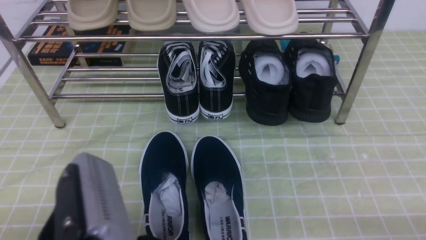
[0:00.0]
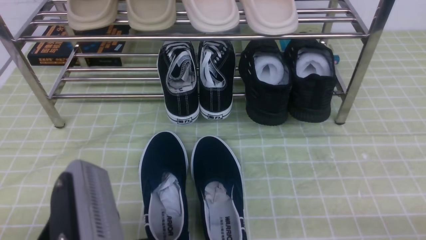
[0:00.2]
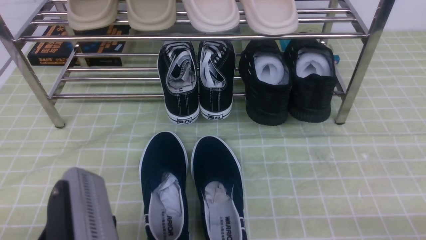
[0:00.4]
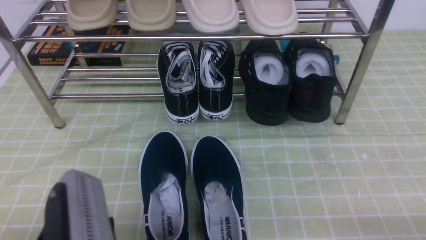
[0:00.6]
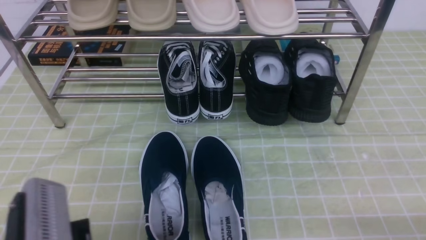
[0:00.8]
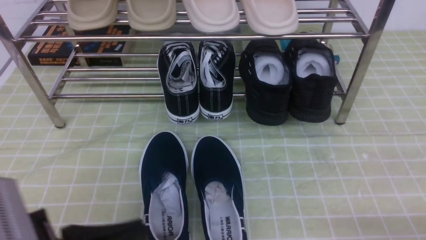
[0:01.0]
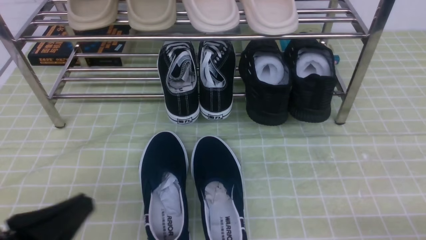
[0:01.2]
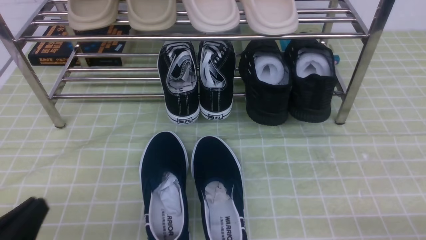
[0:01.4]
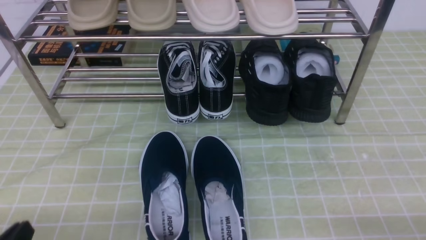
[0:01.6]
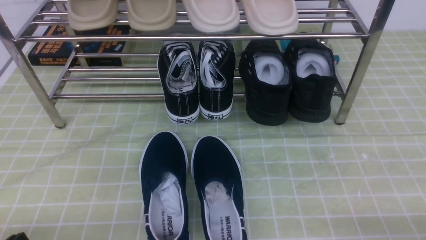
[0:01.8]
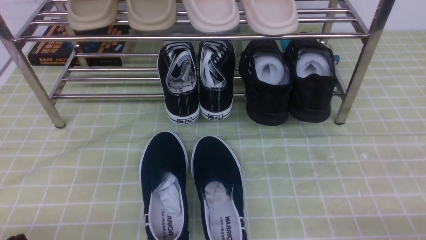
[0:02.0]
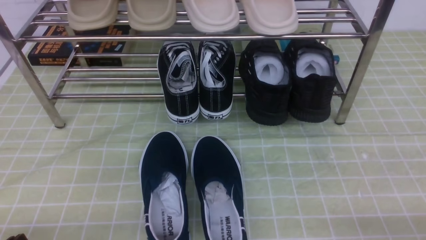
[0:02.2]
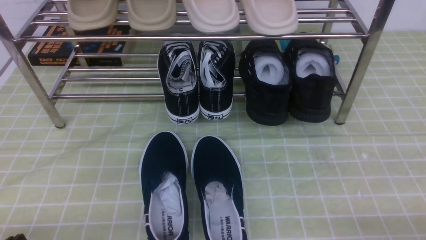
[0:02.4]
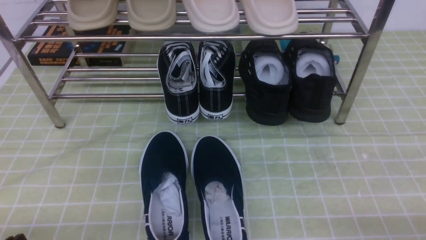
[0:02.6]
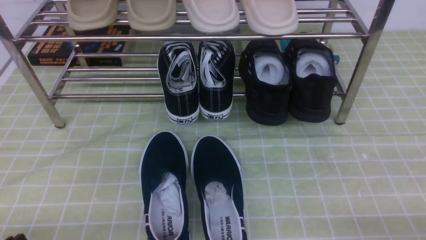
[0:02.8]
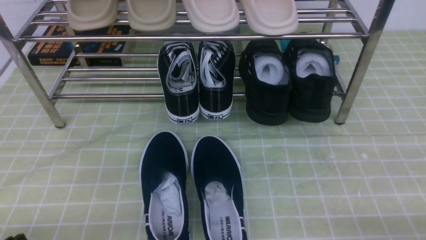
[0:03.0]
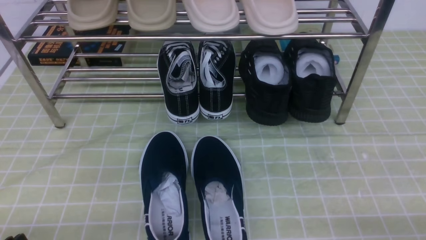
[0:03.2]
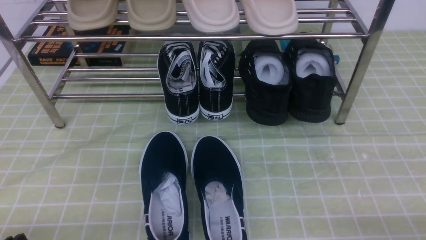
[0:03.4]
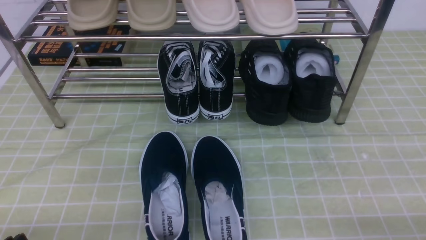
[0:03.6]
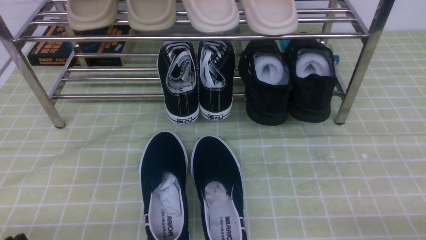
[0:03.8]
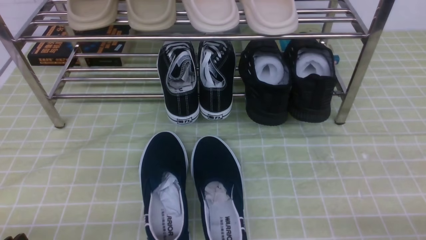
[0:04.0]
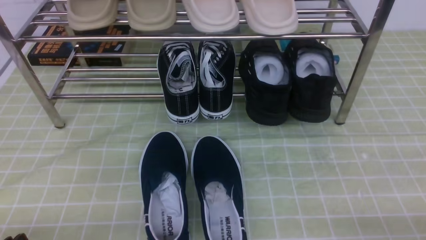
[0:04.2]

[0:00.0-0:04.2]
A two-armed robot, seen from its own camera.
0:00.0 to 0:01.4: The left gripper shifts approximately 15 cm to the left and downward.
0:02.8 to 0:04.2: Neither gripper changes place.

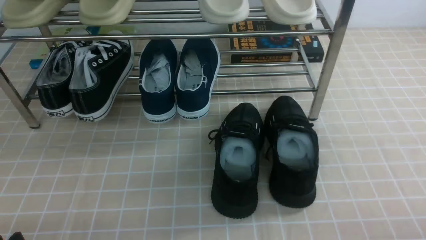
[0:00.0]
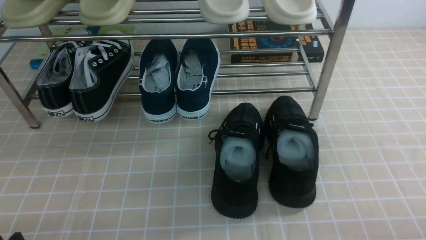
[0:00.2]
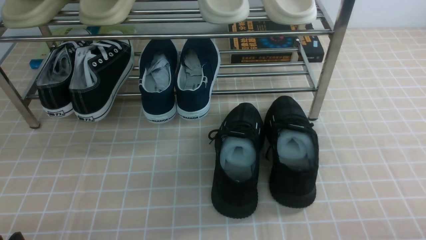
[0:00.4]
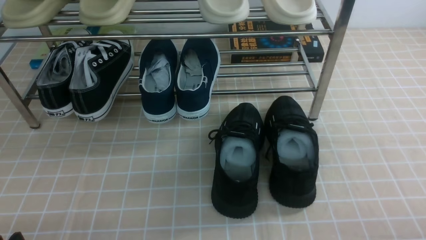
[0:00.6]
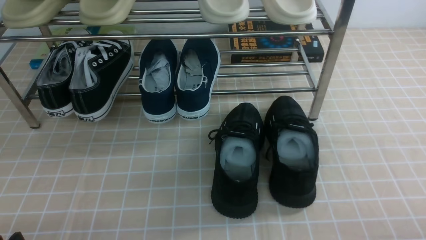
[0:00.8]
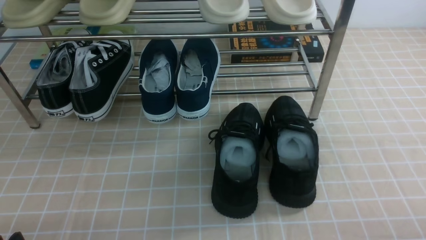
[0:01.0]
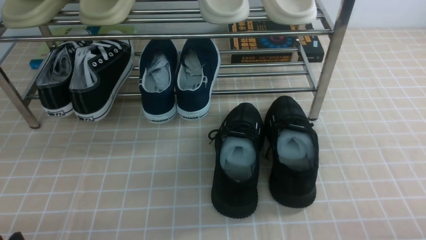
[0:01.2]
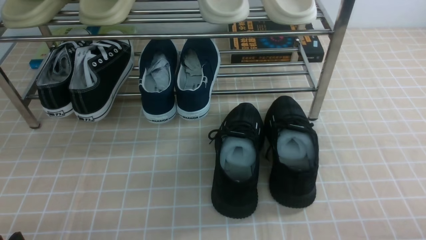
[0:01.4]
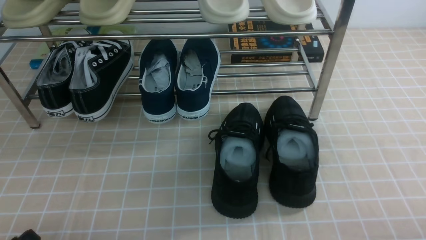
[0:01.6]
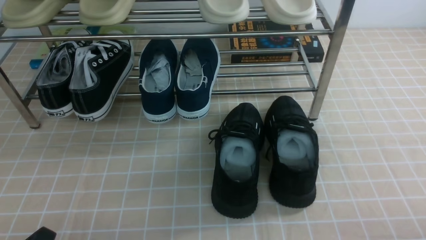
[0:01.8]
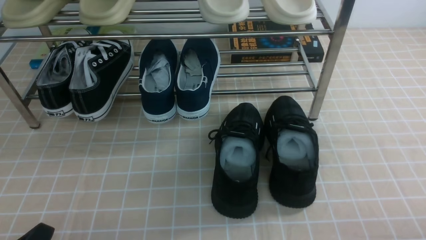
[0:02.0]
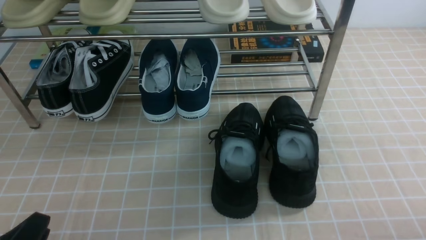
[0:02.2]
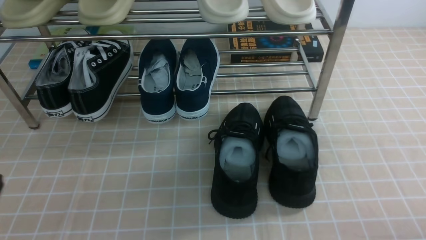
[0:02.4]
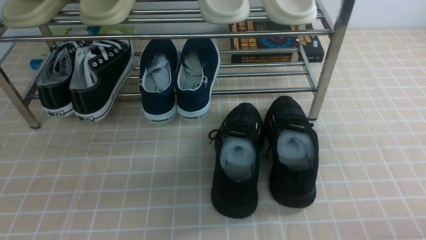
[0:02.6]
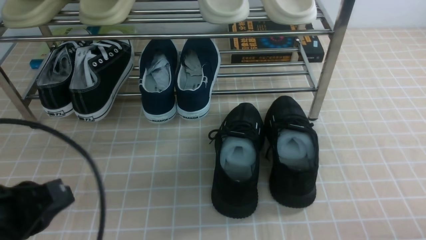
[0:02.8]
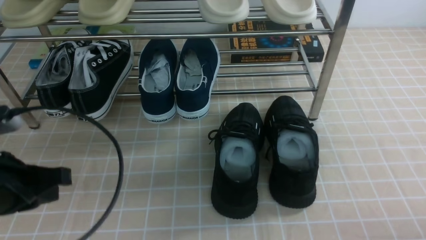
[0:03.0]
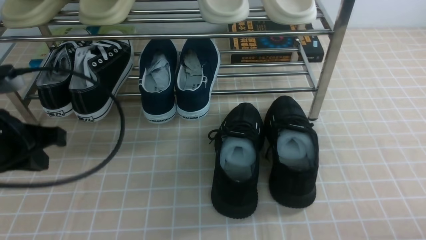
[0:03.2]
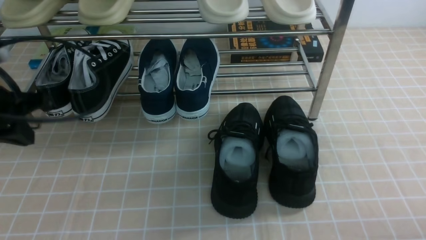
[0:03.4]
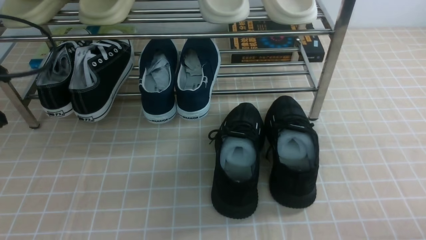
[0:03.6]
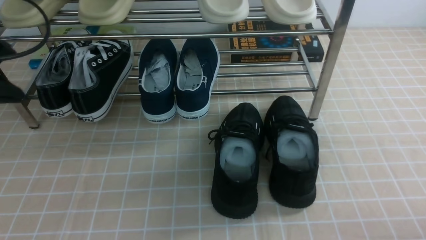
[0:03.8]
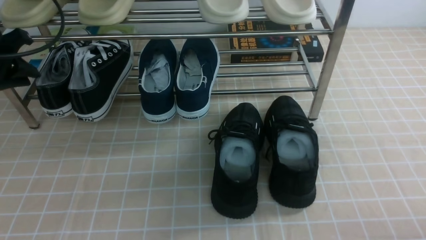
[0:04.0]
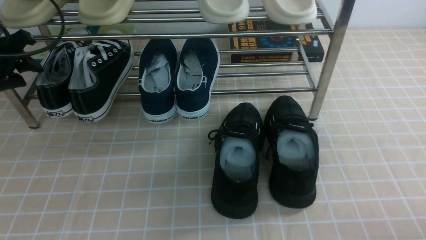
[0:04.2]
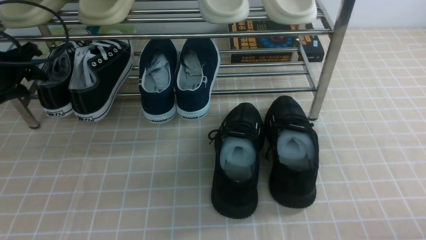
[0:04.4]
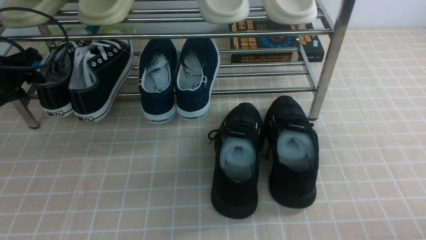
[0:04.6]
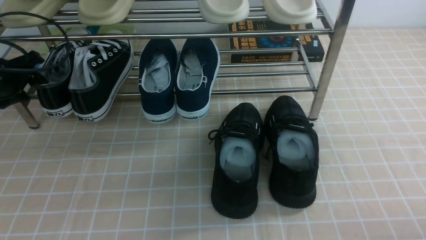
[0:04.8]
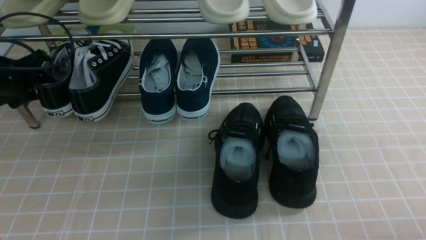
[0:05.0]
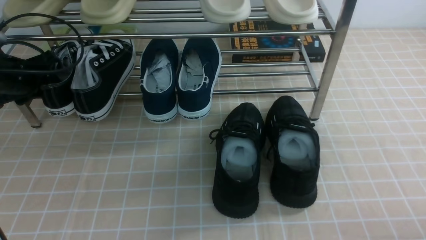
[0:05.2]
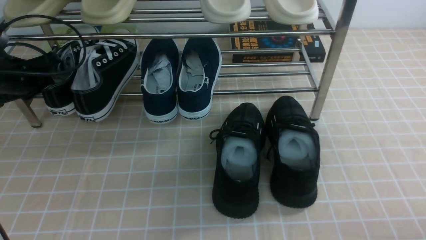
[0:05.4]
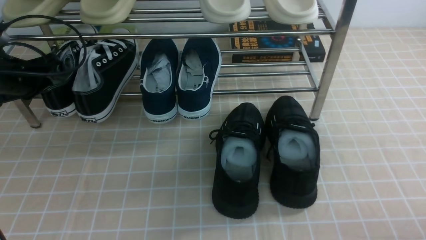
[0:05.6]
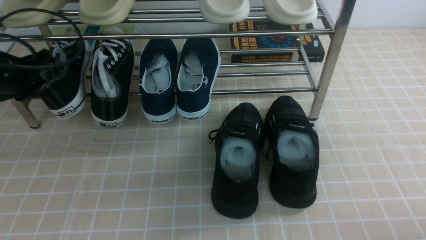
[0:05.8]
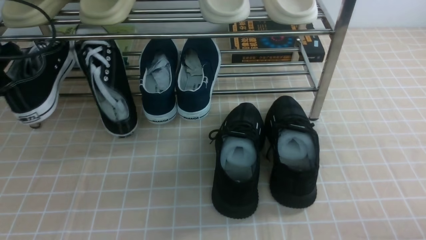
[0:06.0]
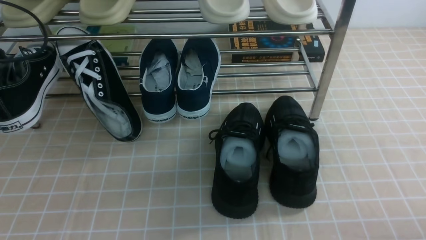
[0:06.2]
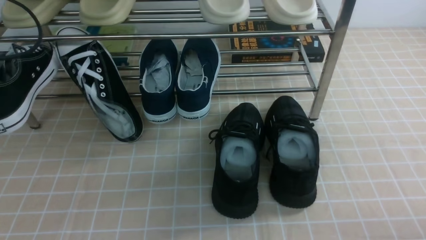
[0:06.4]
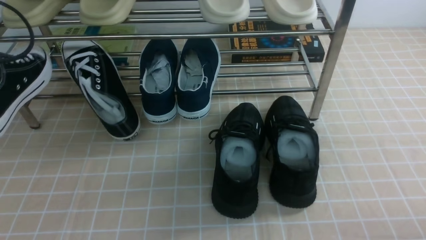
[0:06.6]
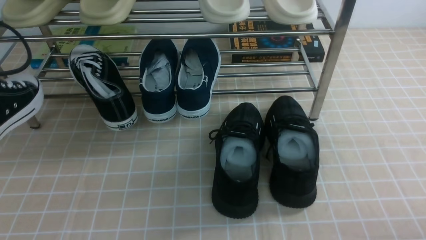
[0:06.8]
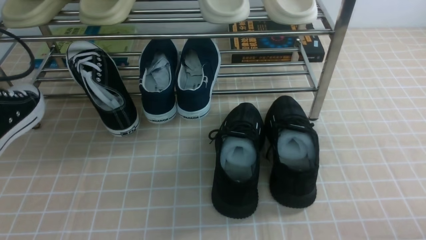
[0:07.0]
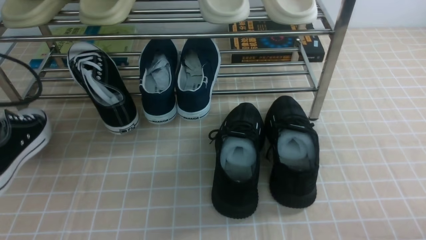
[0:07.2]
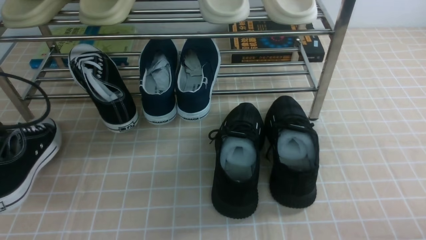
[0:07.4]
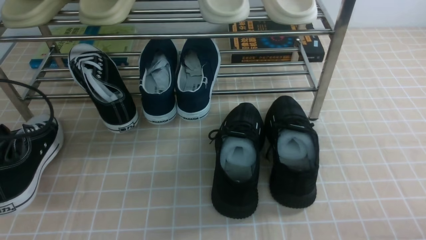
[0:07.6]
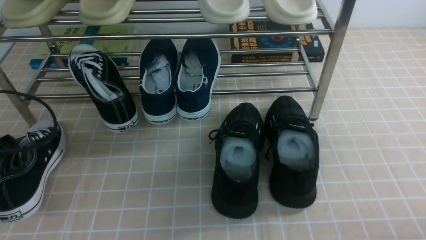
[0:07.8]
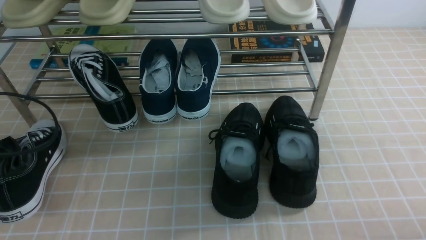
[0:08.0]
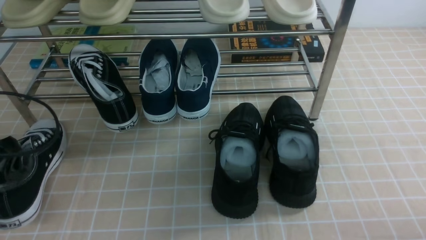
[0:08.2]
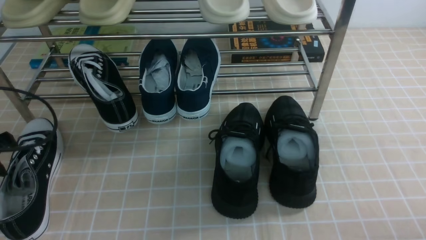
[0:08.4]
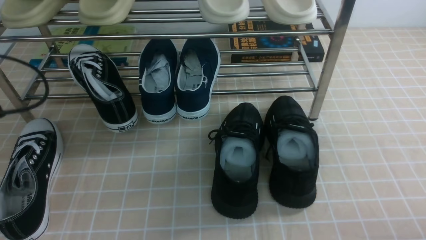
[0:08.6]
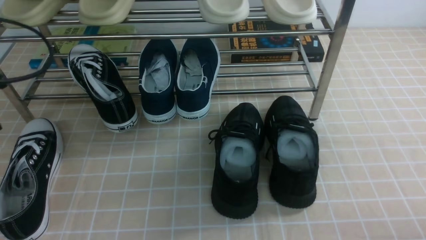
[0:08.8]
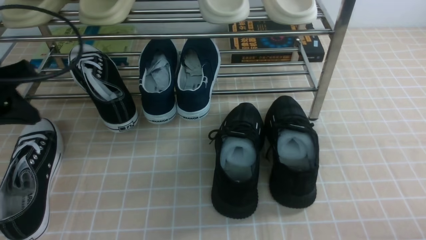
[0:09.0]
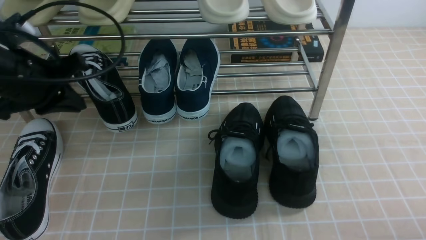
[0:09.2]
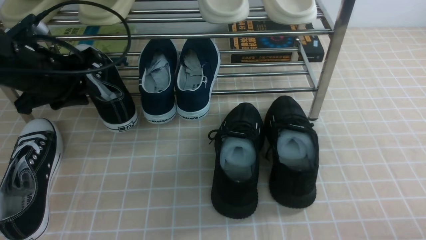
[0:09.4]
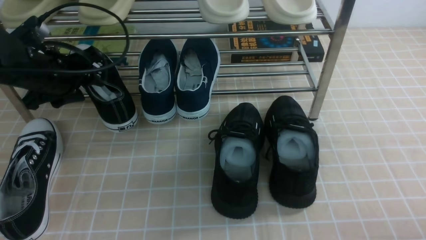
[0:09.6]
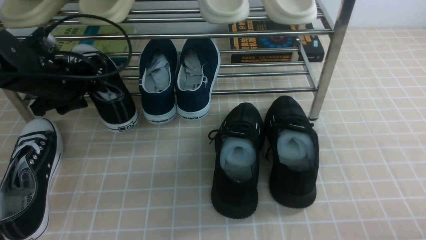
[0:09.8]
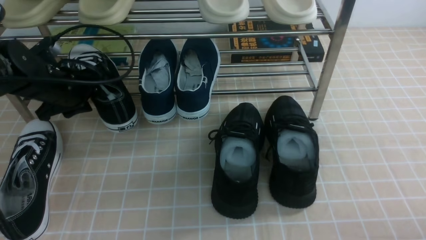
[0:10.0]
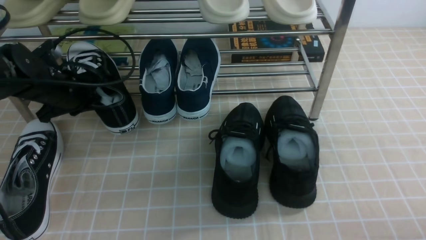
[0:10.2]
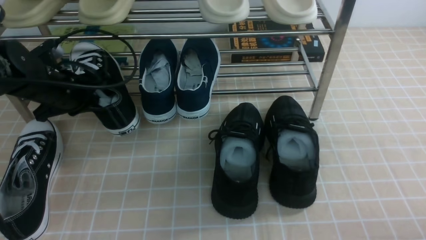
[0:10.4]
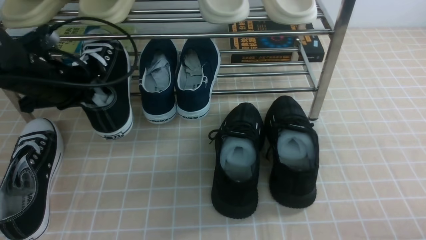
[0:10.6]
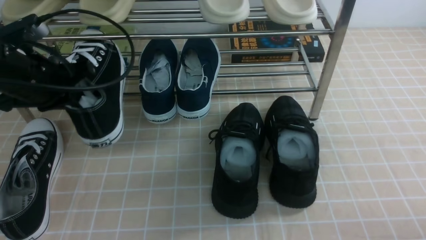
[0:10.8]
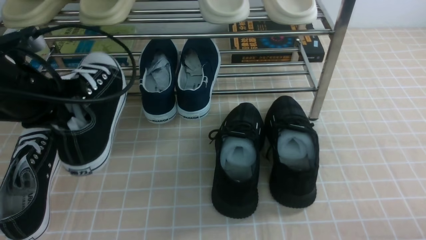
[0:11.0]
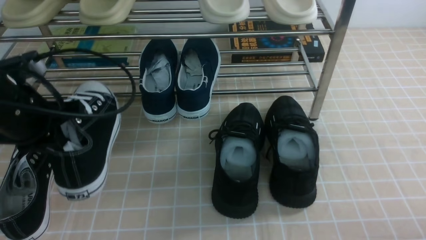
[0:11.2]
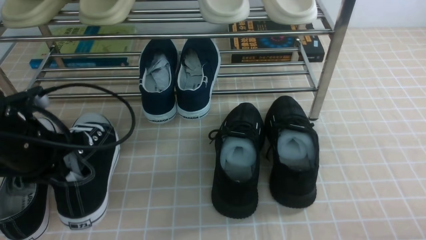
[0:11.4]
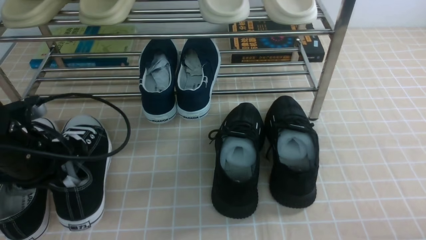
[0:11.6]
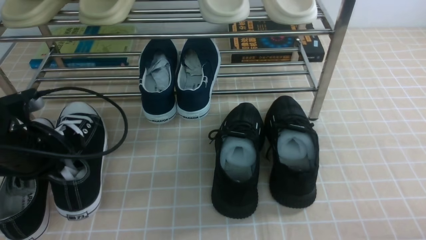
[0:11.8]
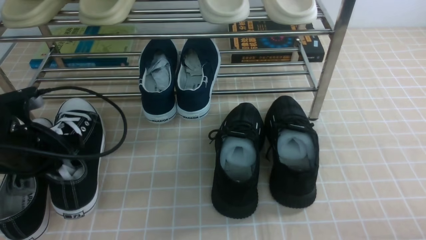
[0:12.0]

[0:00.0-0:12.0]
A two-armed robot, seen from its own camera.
Step, 0:00.0 to 0:05.2: use the left arm to clamp a shoe on the left side of the shoe rack.
Step, 0:05.4 to 0:08.4: Use your left arm to remove the clamped shoe from the shoe rack and put it down.
Step, 0:08.6 to 0:10.0: use the left arm to clamp a shoe on the left side of the shoe rack.
0:01.6 to 0:03.0: The left gripper heads forward and upward, covering some 15 cm, and closes its fingers.
0:03.0 to 0:04.4: The left gripper moves forward and to the left, some 25 cm, and opens up.
0:04.4 to 0:06.0: The left gripper closes its fingers.
0:06.0 to 0:07.6: The left gripper heads backward and downward, covering roughly 10 cm.
0:07.6 to 0:09.0: The left gripper goes approximately 10 cm upward and to the right, and opens and closes again.
0:09.0 to 0:10.4: The left gripper travels forward and downward by roughly 10 cm, and opens and closes again.
0:10.4 to 0:12.0: The left gripper moves backward, roughly 10 cm.
